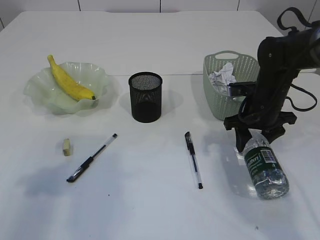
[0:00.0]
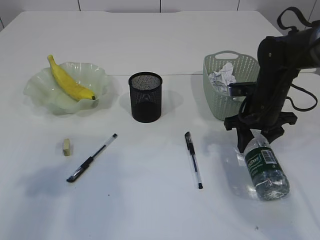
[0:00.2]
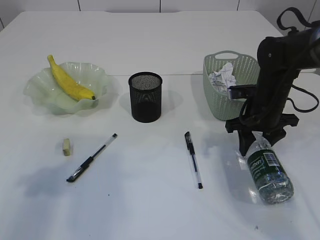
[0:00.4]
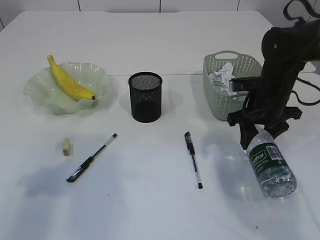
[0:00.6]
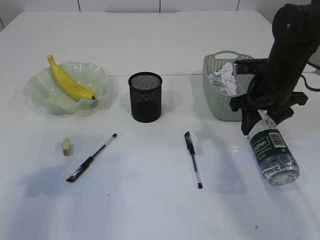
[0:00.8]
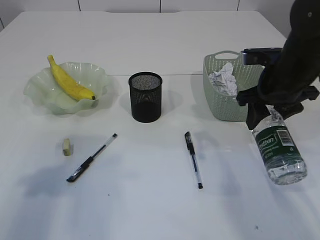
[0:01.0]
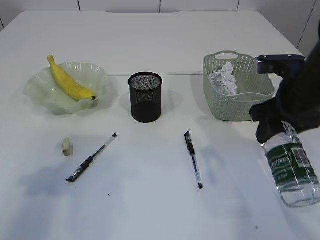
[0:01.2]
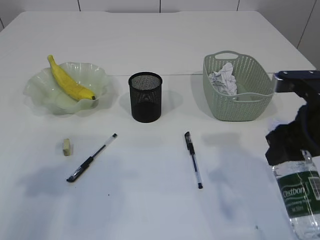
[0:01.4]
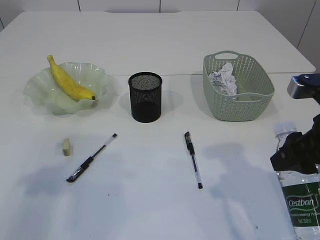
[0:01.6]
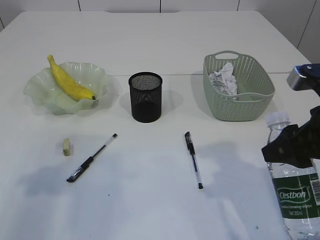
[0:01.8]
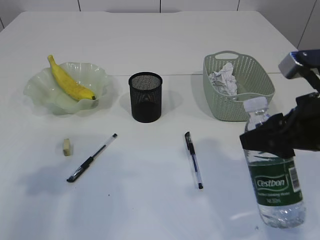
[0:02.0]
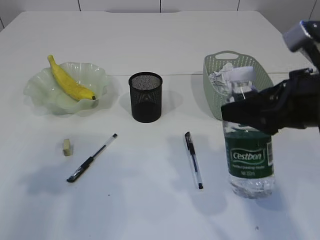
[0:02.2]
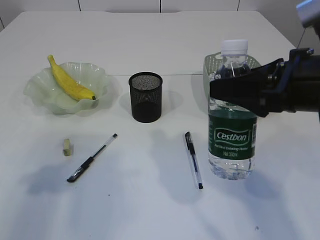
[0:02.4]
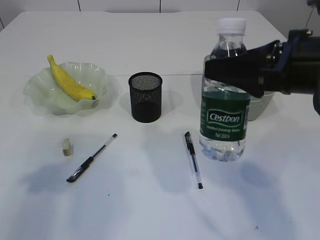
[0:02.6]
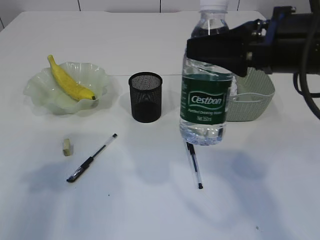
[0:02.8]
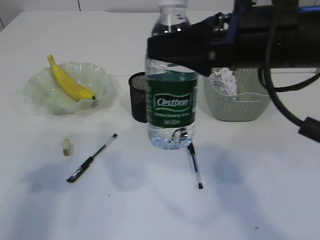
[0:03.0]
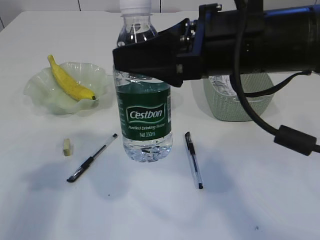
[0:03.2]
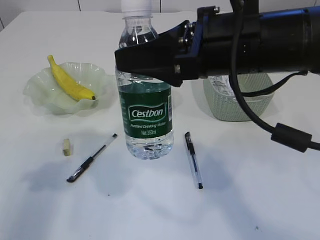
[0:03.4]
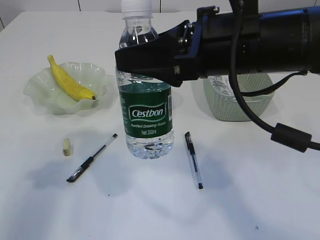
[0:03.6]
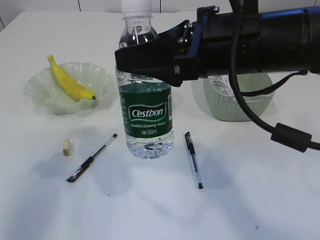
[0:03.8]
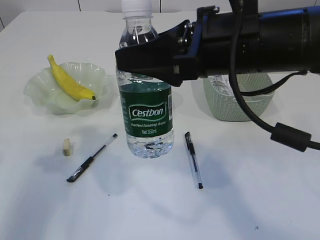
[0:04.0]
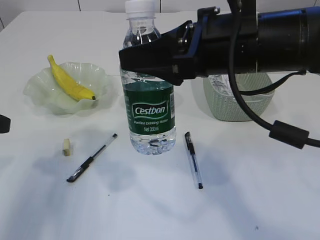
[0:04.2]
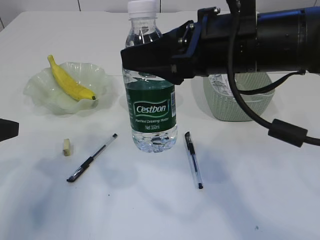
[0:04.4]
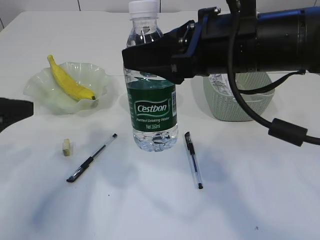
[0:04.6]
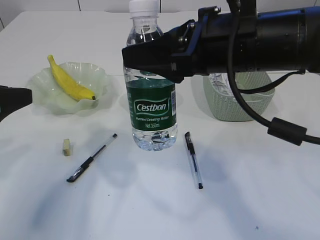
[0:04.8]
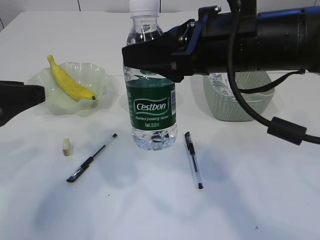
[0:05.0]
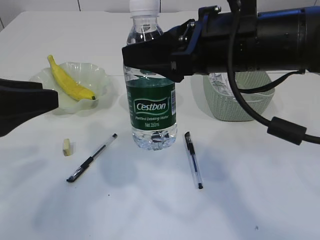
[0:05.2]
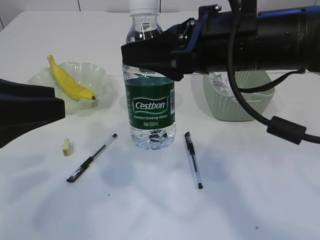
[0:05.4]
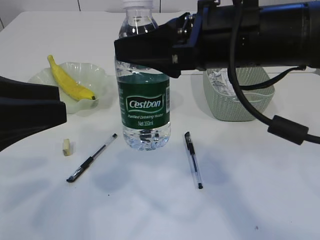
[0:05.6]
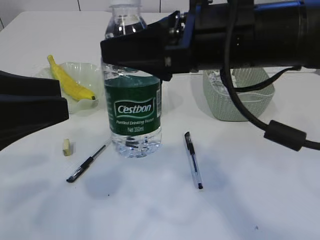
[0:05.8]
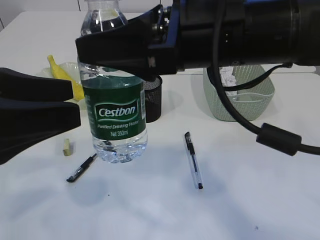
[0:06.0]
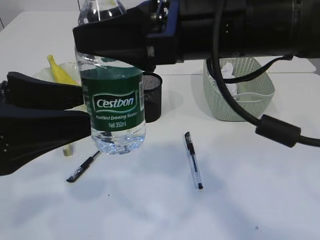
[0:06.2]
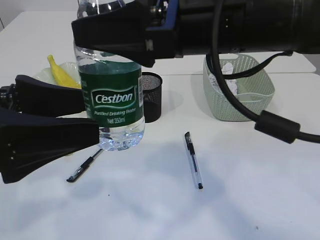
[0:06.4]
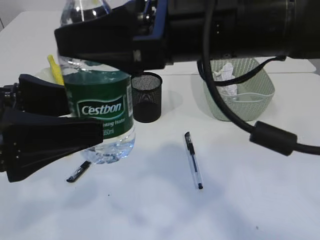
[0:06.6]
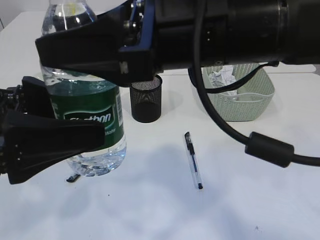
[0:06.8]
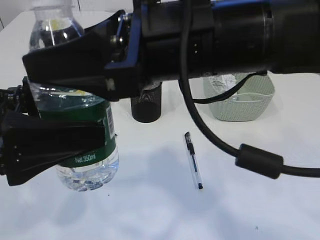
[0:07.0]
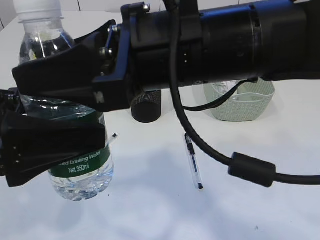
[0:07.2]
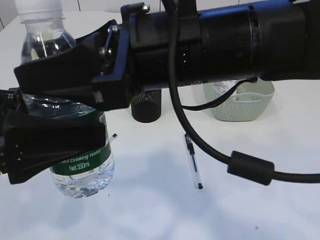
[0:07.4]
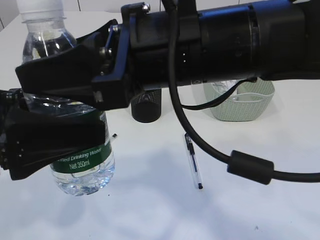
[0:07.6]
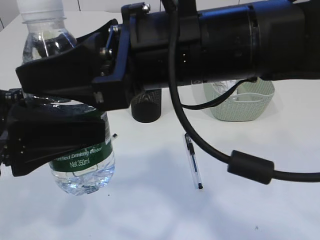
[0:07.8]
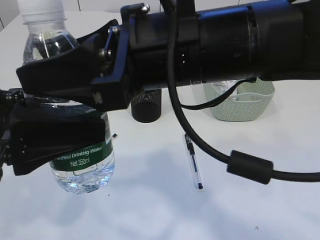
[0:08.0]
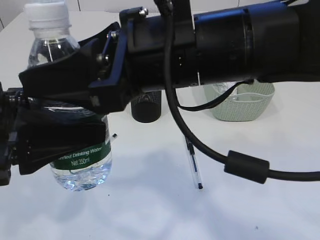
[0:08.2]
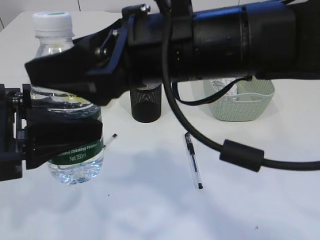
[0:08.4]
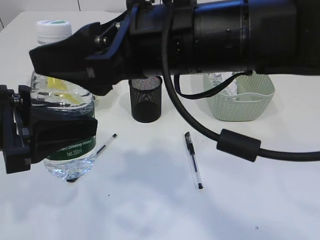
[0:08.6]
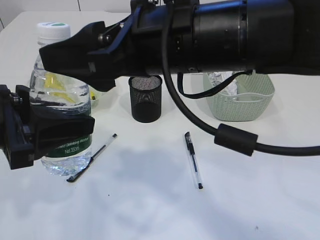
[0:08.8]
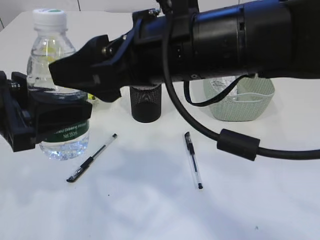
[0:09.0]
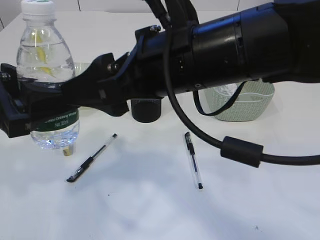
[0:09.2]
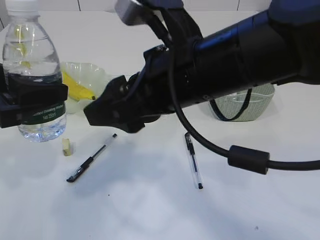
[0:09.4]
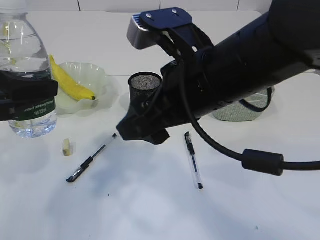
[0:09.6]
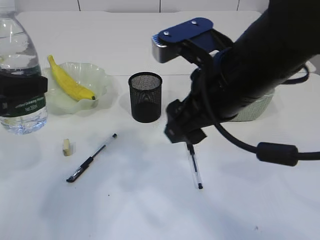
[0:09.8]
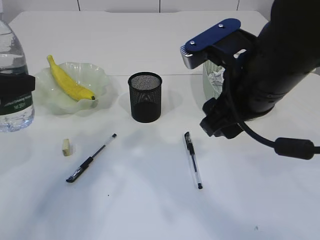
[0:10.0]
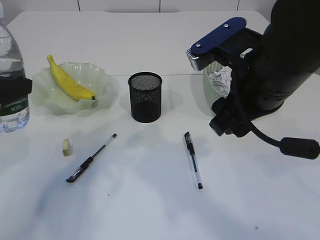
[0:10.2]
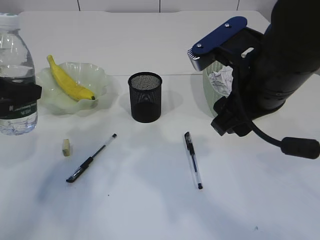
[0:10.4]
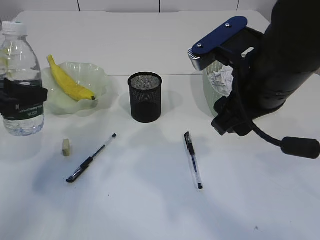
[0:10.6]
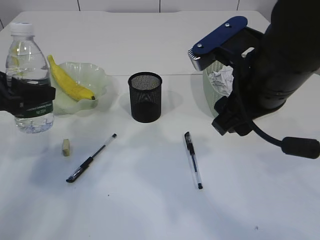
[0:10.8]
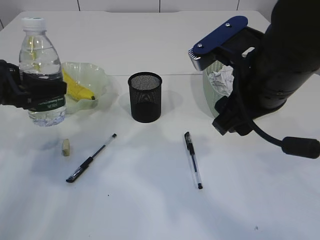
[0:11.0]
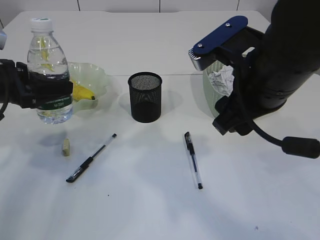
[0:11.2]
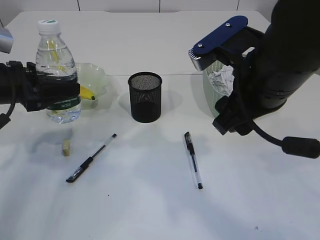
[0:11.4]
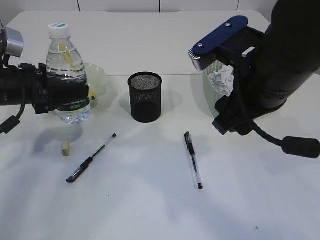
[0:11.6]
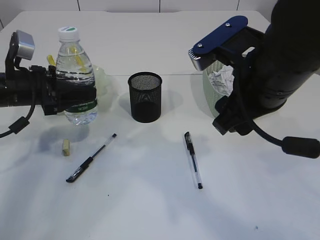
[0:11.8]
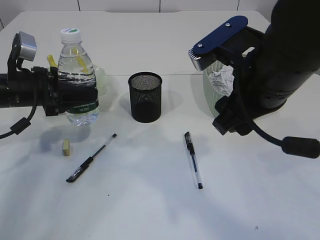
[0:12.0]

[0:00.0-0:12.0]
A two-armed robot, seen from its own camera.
Step, 0:01.0 to 0:09.0: transfer the bottle to the left arm.
0:00.0 to 0:01.6: The right gripper goes roughly 20 cm backward and upward.
0:01.6 to 0:03.0: The right gripper goes some 15 cm to the left and upward.
0:03.0 to 0:04.4: The left gripper shifts by roughly 5 cm.
0:04.4 to 0:06.0: The left gripper shifts about 5 cm to the right.
0:07.6 to 0:09.0: The right gripper opens.
0:09.0 to 0:10.4: The right gripper shifts some 10 cm to the right. The left gripper shifts roughly 10 cm to the left and forward.
0:10.4 to 0:12.0: The left gripper is displaced forward and downward by roughly 15 cm.

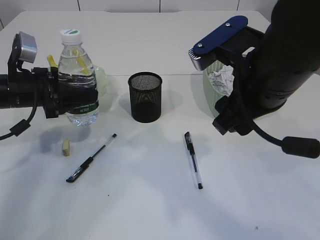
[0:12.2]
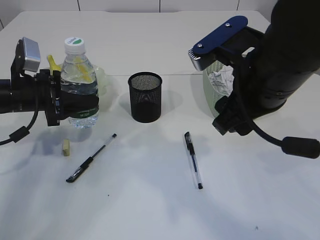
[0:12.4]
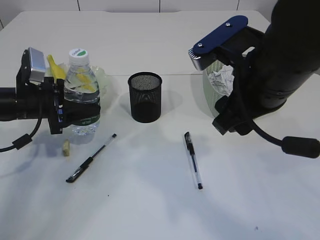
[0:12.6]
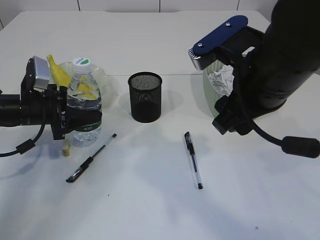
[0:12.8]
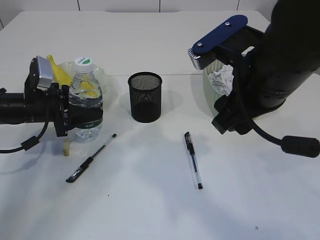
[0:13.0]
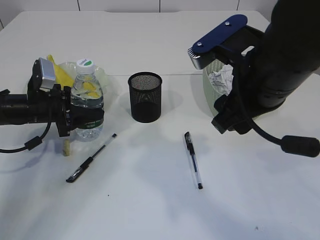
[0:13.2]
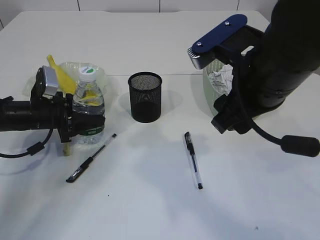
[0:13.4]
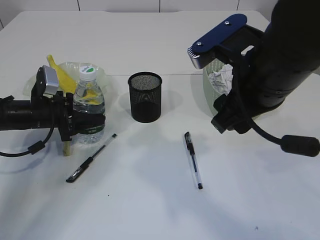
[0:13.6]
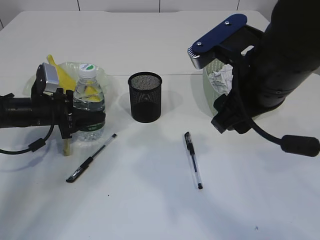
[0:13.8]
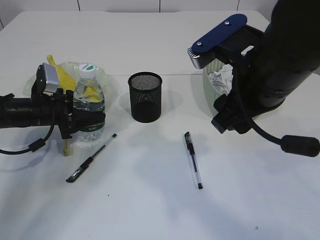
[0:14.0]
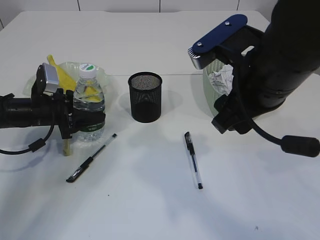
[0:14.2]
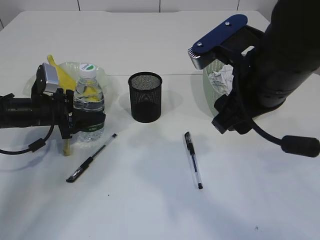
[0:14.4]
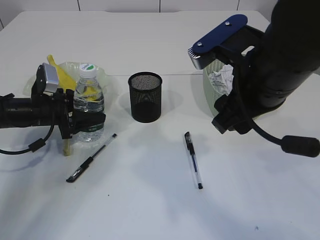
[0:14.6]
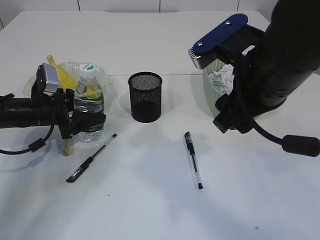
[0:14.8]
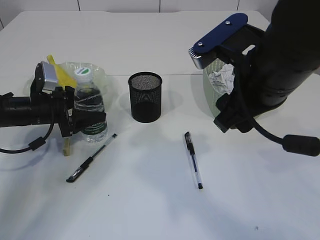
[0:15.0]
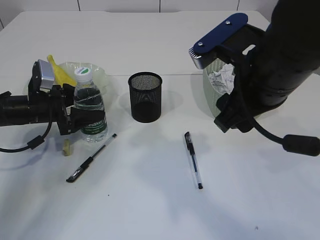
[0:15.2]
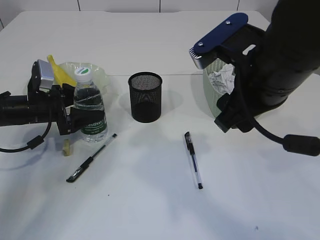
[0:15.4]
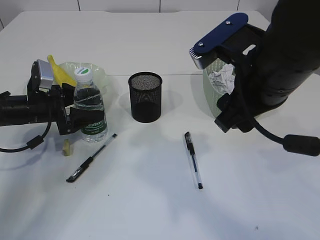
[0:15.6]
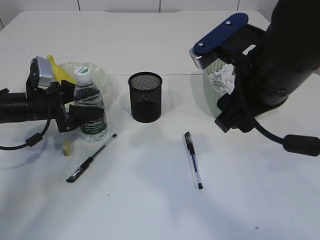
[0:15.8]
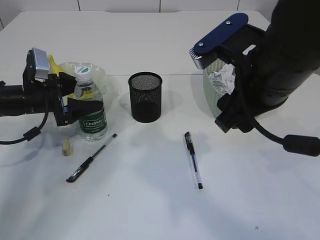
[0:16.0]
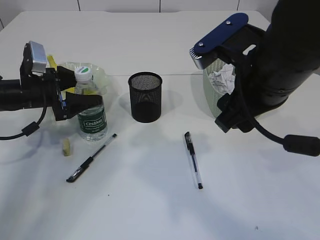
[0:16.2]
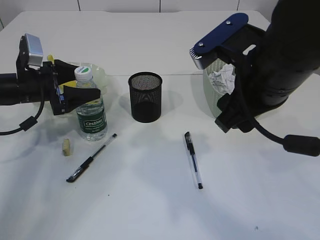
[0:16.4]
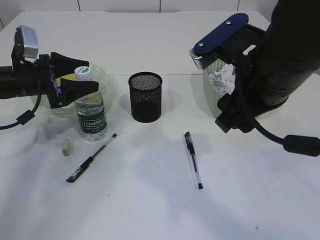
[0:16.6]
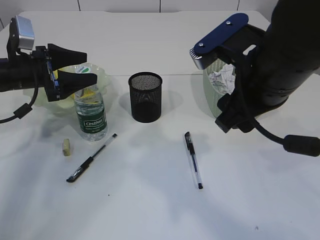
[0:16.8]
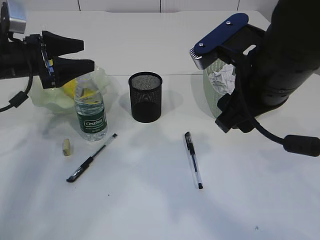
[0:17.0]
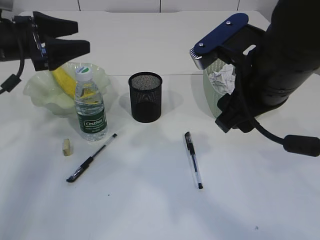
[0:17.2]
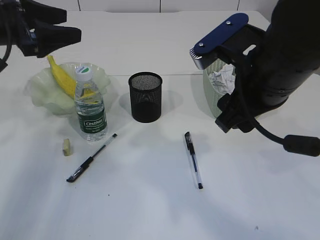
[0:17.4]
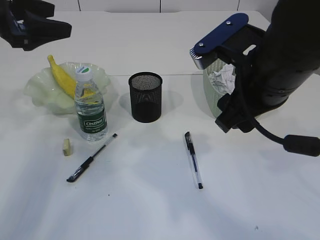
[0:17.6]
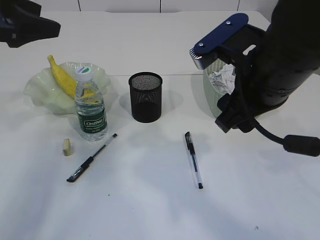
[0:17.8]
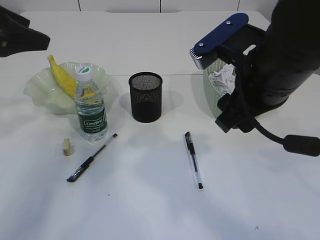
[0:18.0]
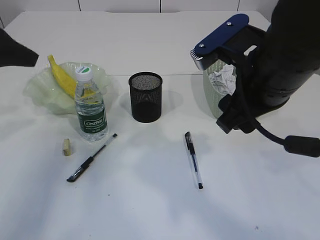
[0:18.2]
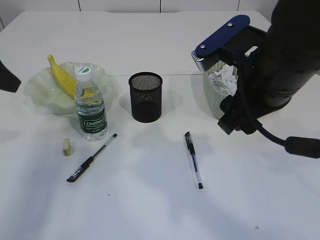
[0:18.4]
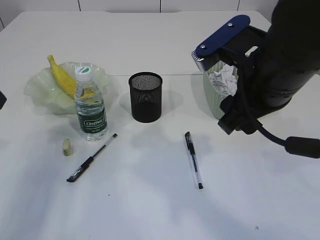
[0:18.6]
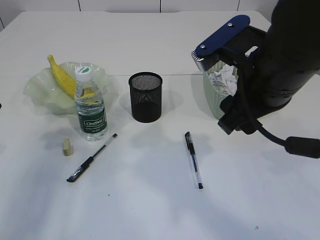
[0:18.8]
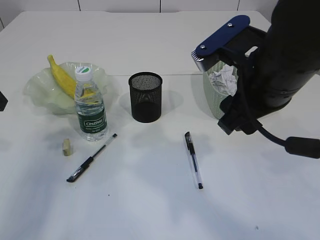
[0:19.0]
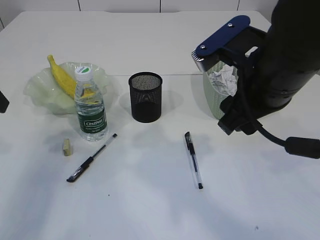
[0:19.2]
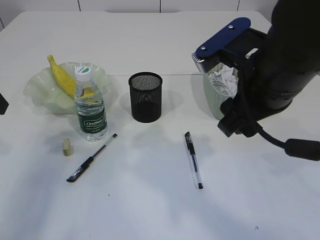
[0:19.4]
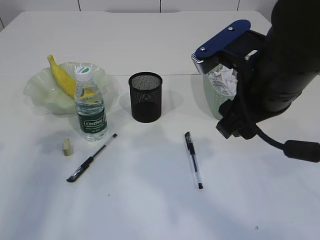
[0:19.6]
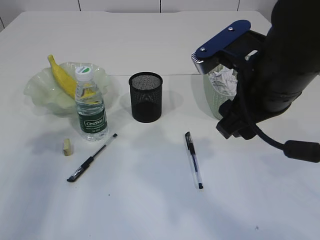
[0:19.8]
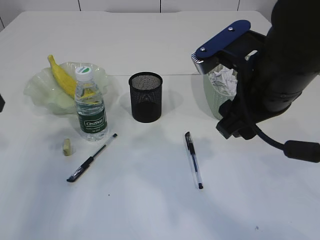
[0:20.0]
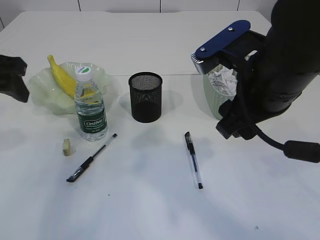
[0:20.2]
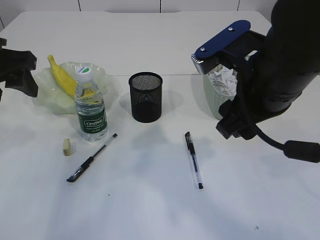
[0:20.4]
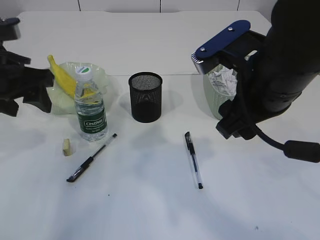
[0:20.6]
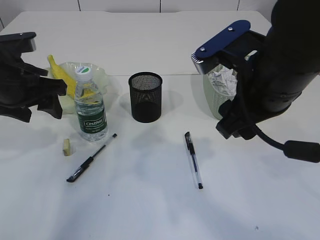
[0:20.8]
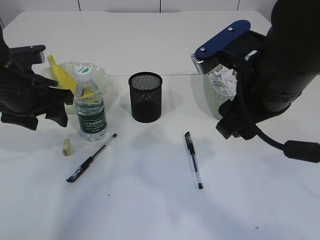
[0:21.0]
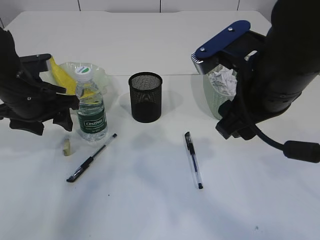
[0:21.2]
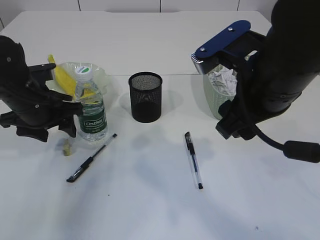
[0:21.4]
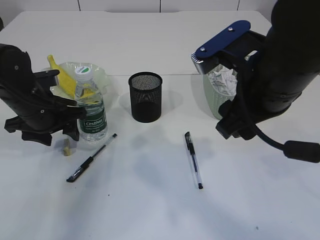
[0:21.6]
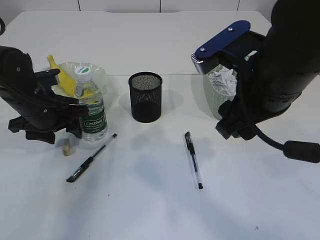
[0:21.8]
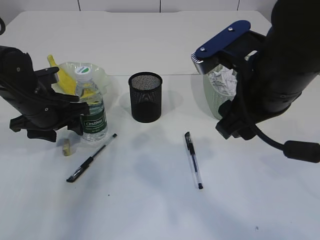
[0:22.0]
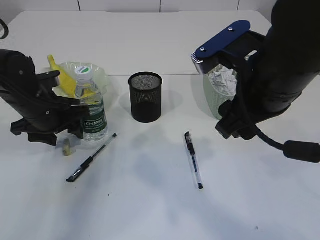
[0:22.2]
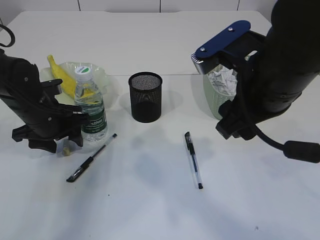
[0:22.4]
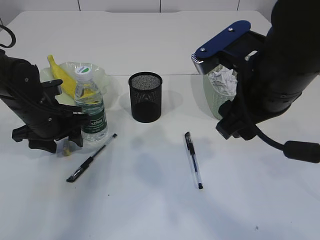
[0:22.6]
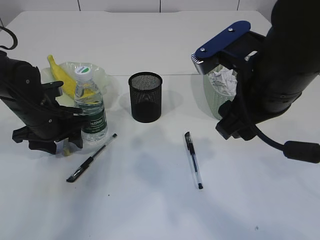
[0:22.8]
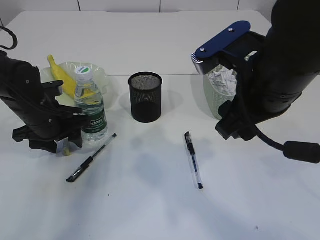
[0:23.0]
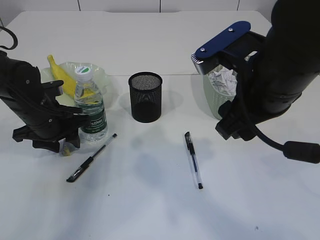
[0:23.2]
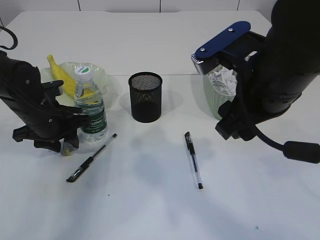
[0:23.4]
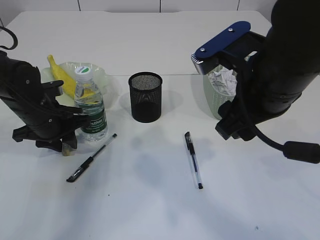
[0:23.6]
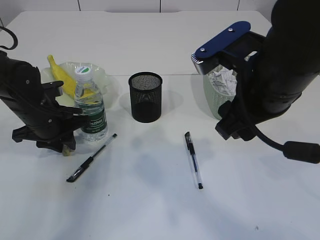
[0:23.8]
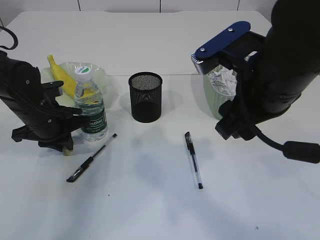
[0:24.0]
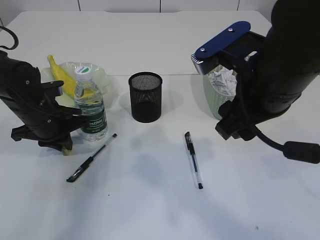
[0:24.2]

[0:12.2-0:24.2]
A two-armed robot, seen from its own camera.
Step, 0:12.2 to 0:17.0: Place the bottle.
0:12.2 to 0:13.8: The left gripper heads downward, covering roughly 10 cm.
0:13.8 to 0:15.2: The left gripper opens its fingers.
0:15.2 to 0:16.6: The left gripper shifts roughly 5 cm upward.
0:16.6 to 0:18.2: The left gripper moves upward and backward, some 20 cm.
0:18.2 to 0:19.8: The left gripper changes place by some 5 cm.
0:19.8 to 0:21.2: The left gripper heads to the right, downward and forward, covering approximately 15 cm.
0:21.2 to 0:22.6: The left gripper shifts roughly 5 cm downward.
0:22.6 to 0:24.2: The left gripper closes.
